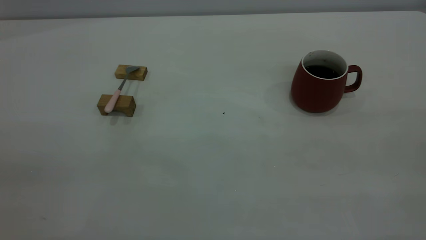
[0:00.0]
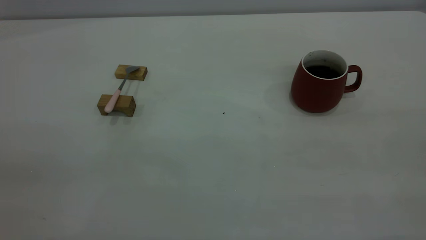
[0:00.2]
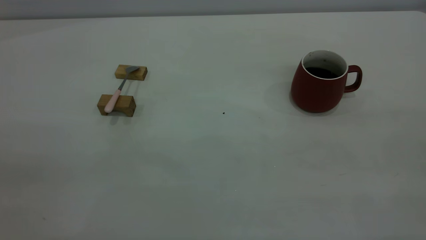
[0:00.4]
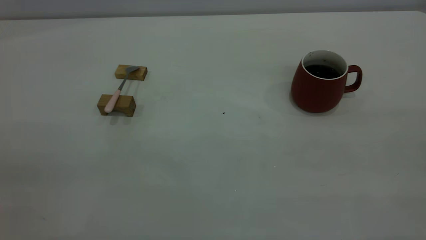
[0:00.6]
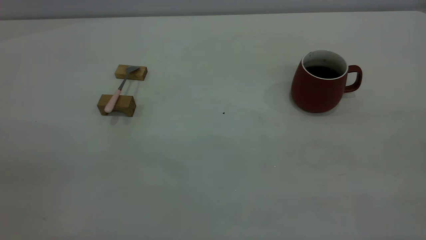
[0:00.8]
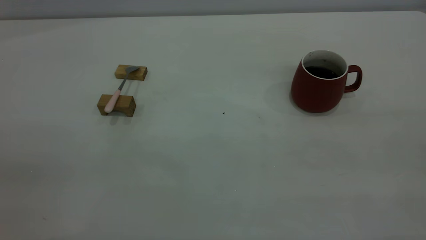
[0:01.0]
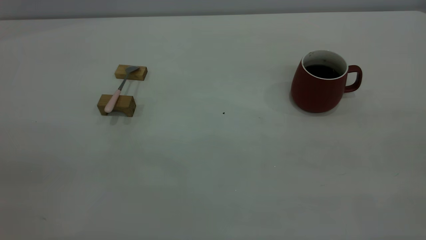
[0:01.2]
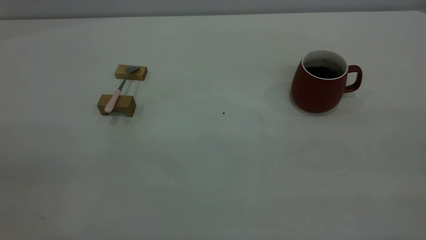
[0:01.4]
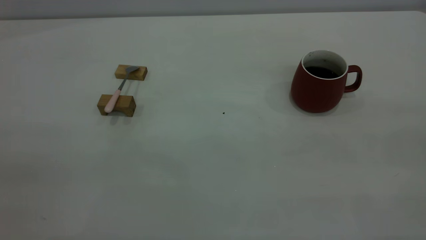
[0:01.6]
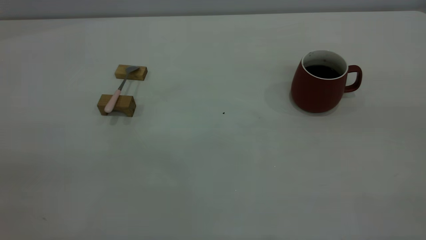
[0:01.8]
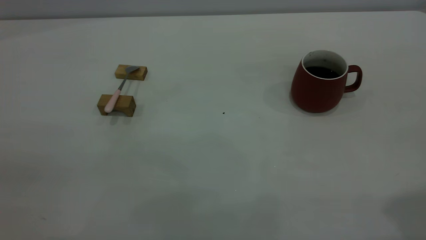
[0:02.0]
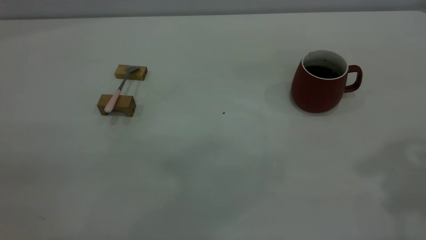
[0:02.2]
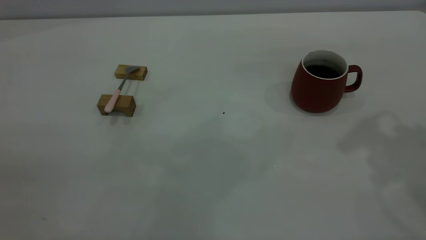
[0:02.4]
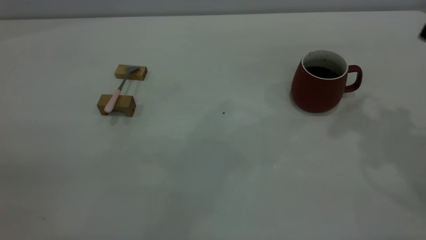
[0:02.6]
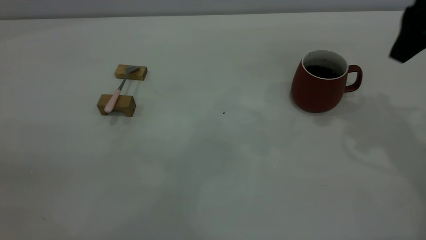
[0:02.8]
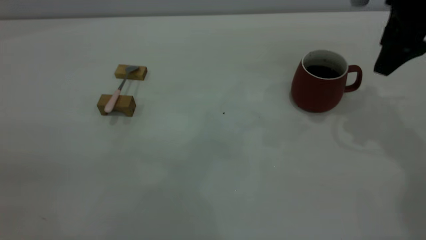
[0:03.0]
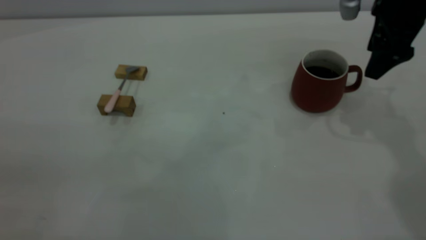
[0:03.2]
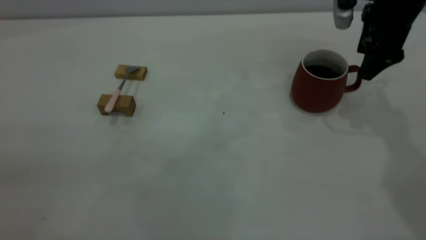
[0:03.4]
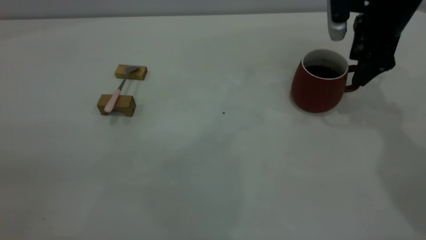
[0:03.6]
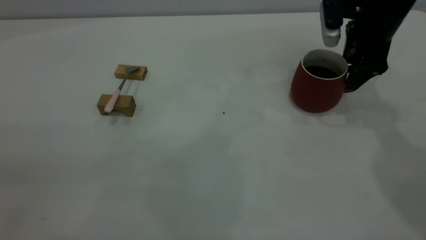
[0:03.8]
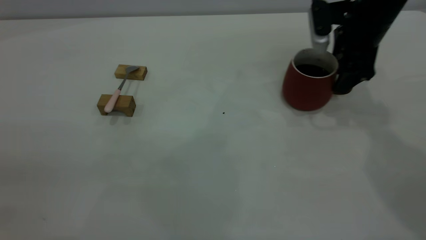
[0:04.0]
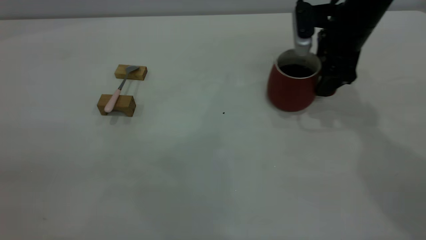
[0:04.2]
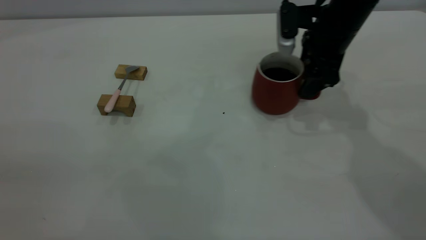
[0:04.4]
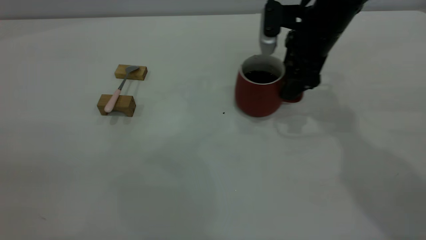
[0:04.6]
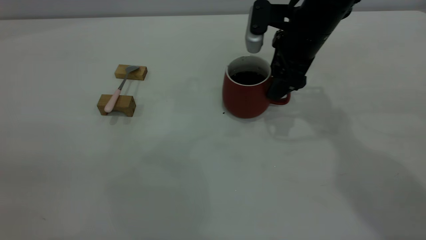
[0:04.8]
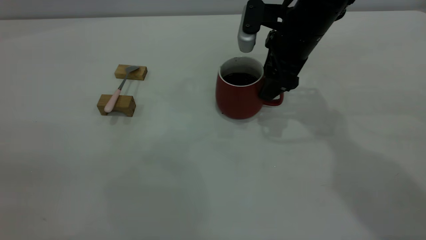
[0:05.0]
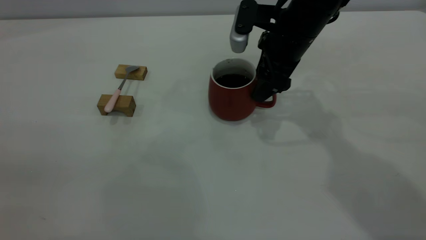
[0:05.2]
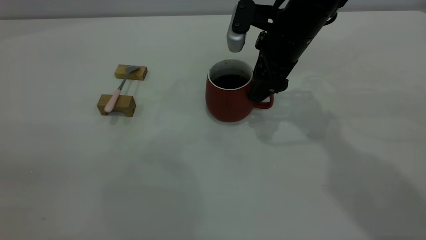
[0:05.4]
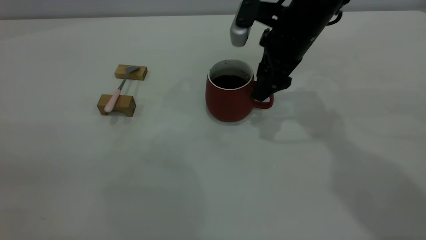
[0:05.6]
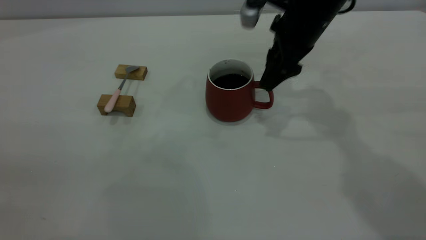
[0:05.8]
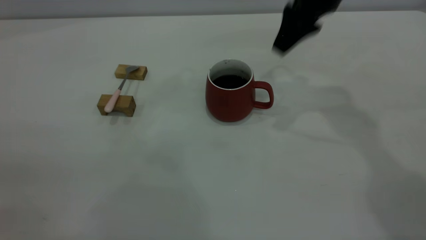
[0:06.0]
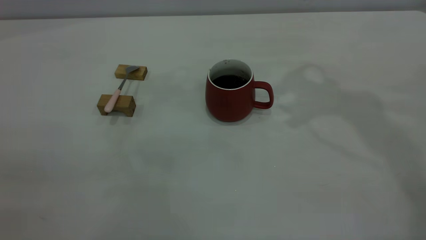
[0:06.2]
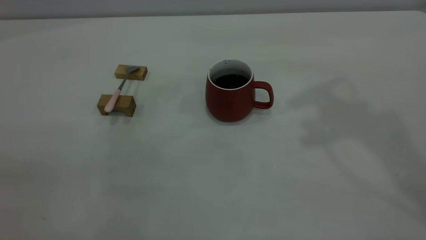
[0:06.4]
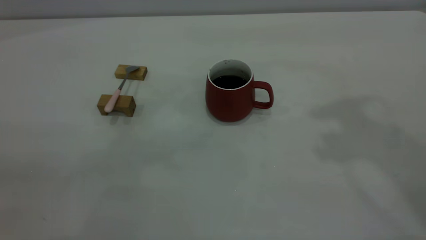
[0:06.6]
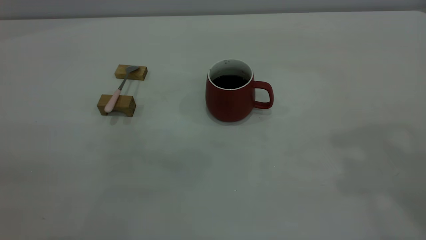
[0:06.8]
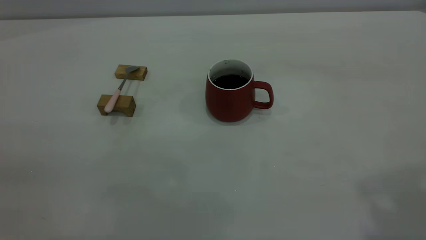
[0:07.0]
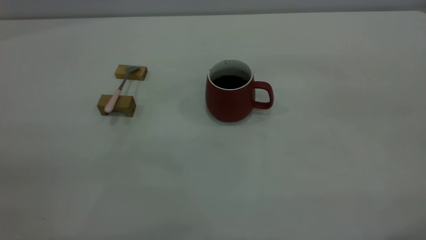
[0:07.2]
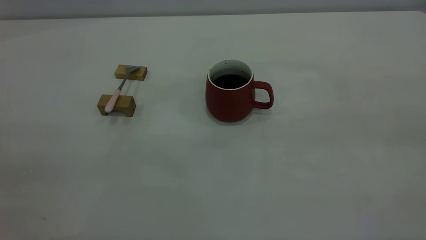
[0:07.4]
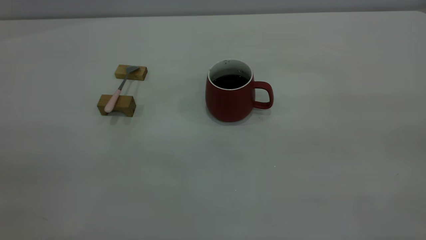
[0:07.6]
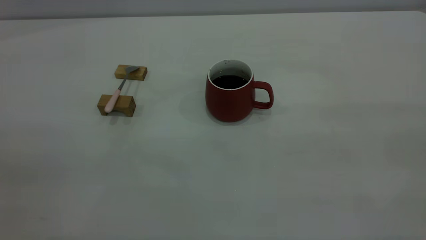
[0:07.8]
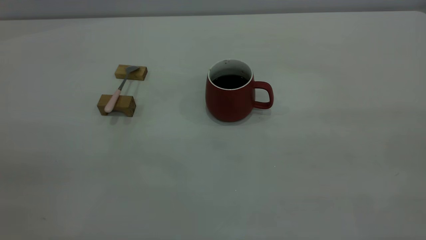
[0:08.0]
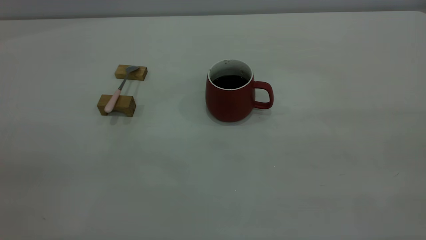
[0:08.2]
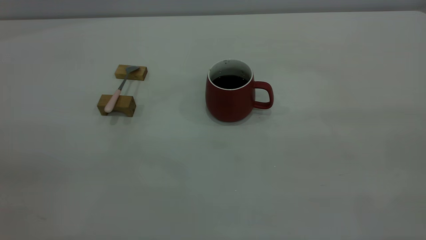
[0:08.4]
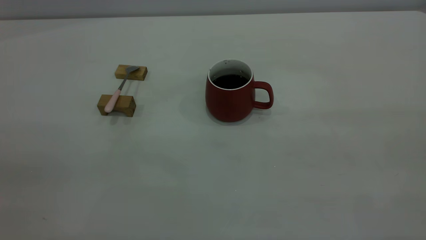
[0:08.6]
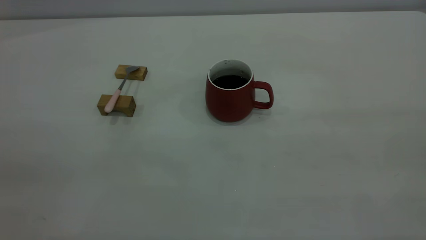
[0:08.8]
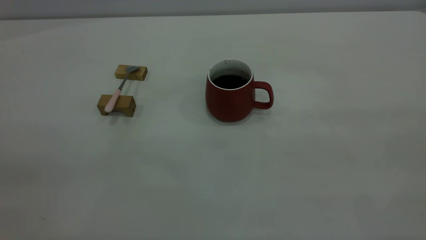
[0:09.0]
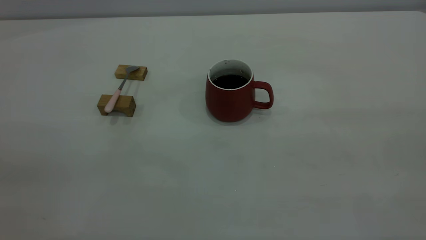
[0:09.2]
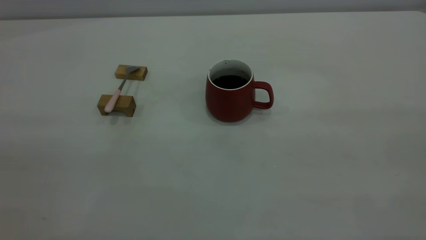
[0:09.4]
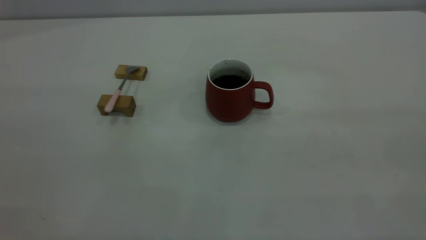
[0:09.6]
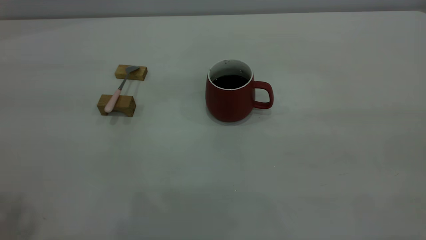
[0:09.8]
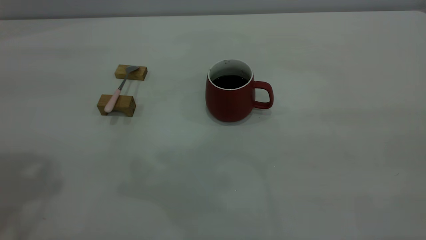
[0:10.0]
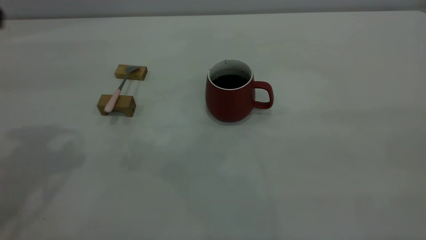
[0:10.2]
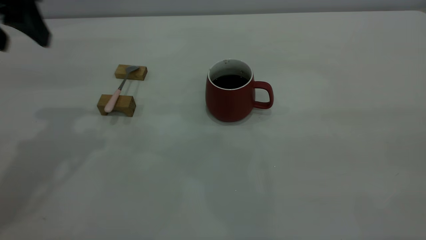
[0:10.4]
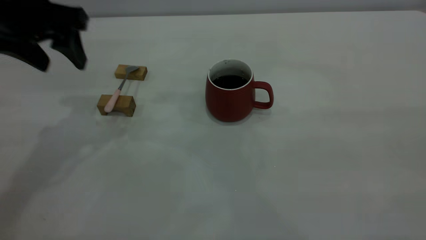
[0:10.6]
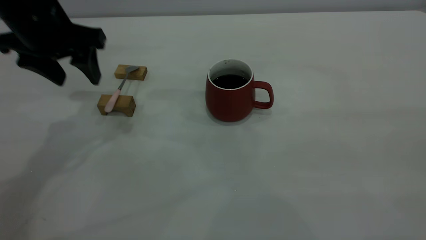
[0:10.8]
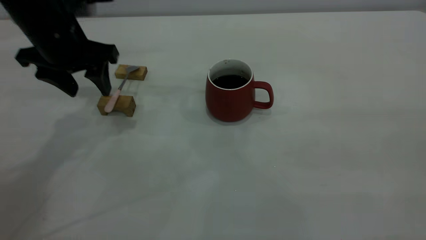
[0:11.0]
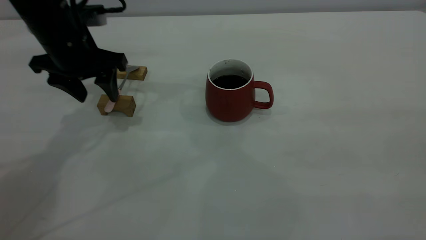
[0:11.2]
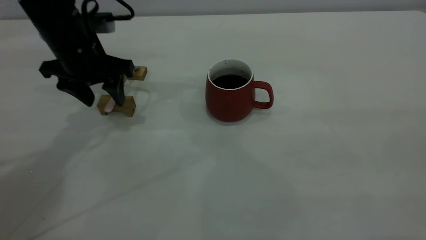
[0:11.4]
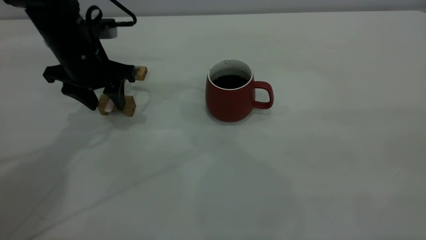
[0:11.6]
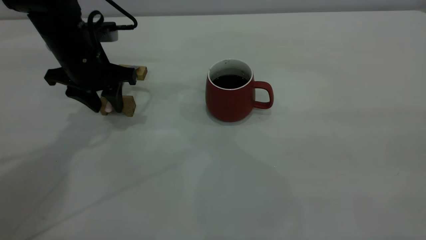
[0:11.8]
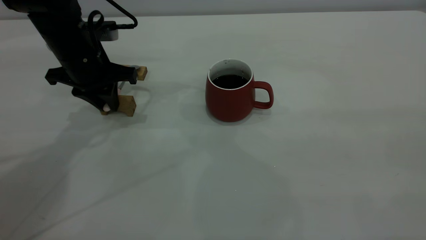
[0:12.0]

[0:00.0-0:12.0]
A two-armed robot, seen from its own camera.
Step, 0:00.0 to 0:05.8: Move the cup with coffee to the center of view.
0:01.6 to 0:03.0: The right gripper goes about 40 cm forward and downward, and opens up.
0:03.0 to 0:04.4: The right gripper travels to the left and downward by about 10 cm, and closes its fingers.
0:04.4 to 0:06.0: The right gripper goes approximately 10 cm upward, and closes.
0:06.0 to 0:07.6: The right gripper is displaced backward by roughly 40 cm.
0:09.0 to 0:10.4: The left gripper is displaced forward by roughly 30 cm, and opens up.
0:10.4 to 0:12.0: The left gripper travels downward and forward by some 15 cm, and closes up.

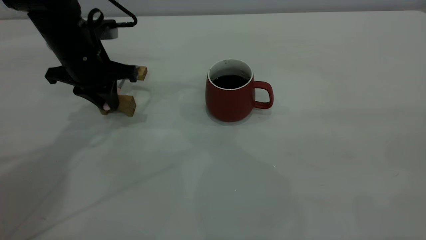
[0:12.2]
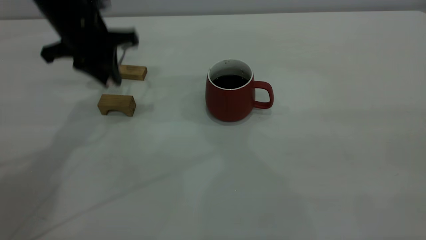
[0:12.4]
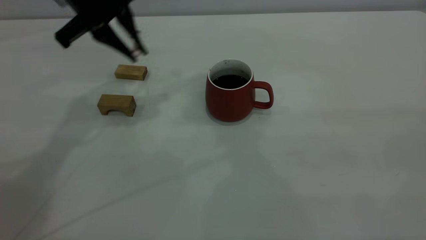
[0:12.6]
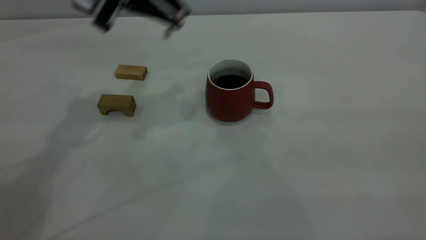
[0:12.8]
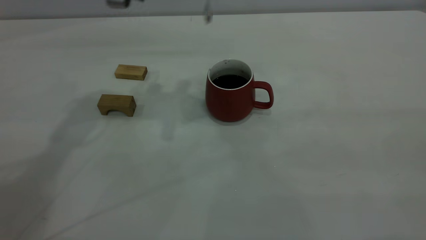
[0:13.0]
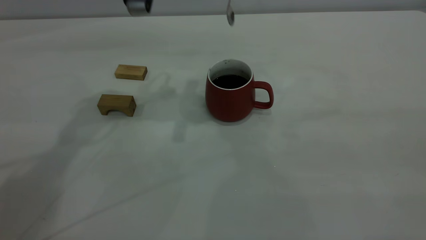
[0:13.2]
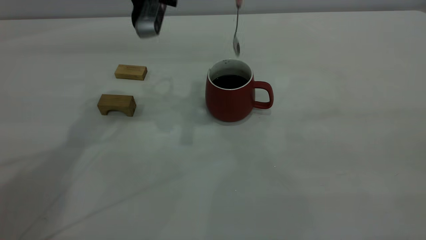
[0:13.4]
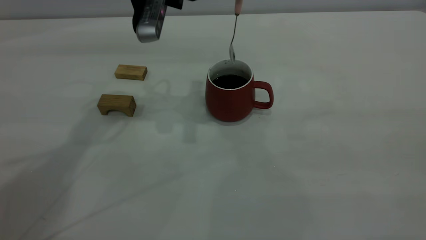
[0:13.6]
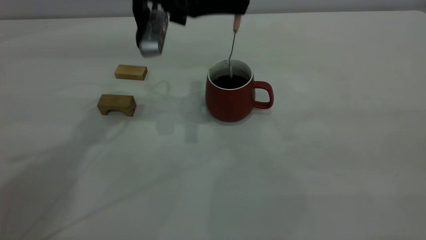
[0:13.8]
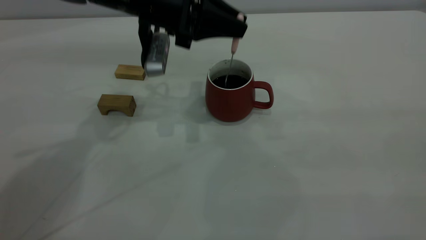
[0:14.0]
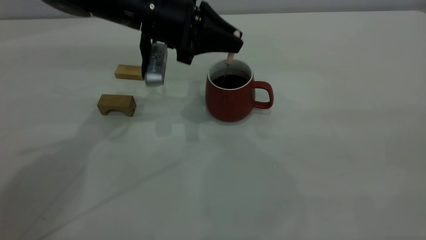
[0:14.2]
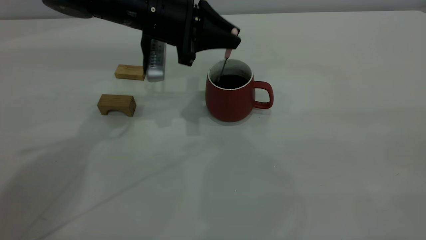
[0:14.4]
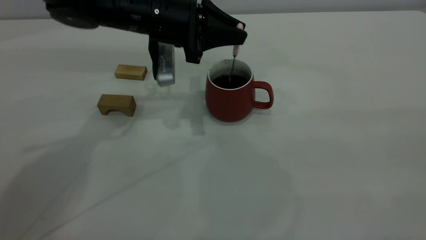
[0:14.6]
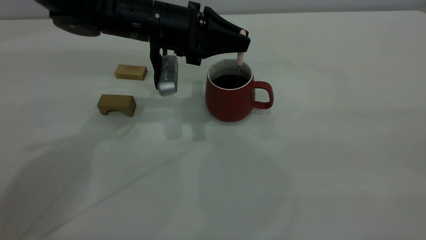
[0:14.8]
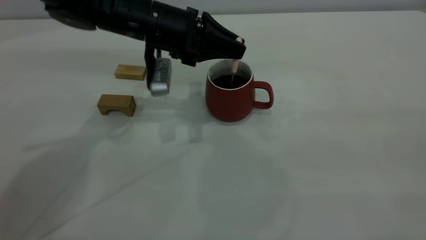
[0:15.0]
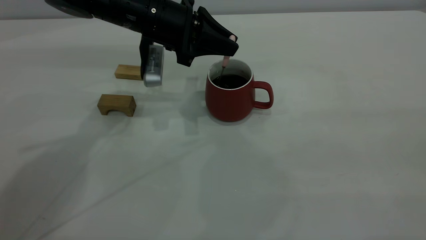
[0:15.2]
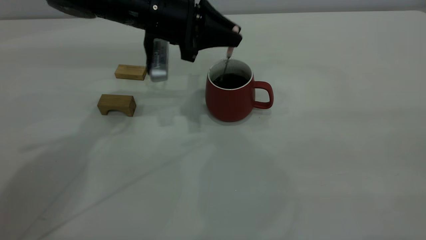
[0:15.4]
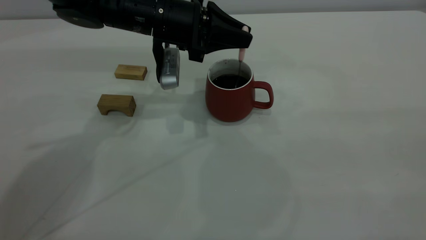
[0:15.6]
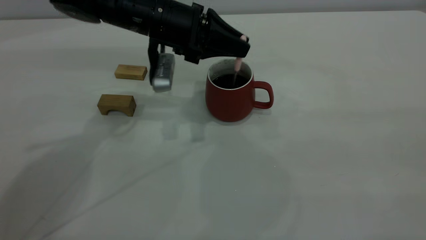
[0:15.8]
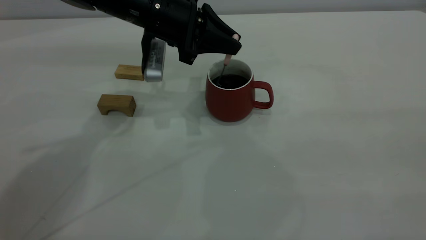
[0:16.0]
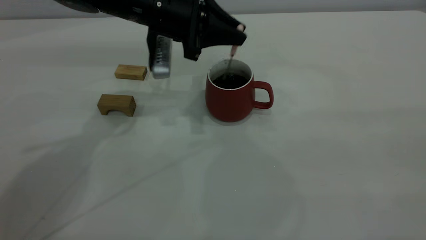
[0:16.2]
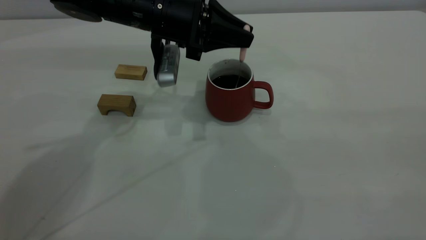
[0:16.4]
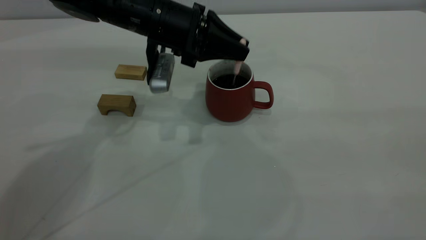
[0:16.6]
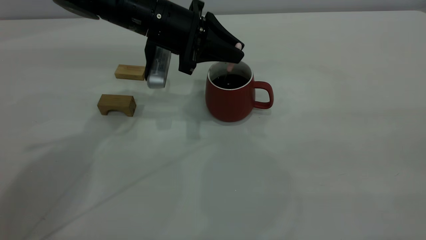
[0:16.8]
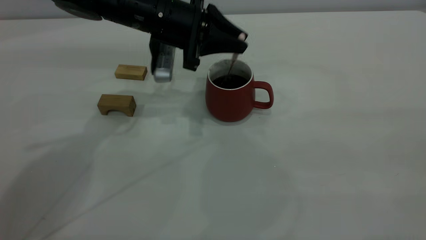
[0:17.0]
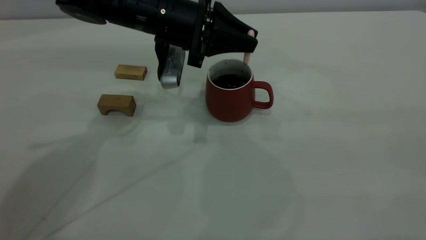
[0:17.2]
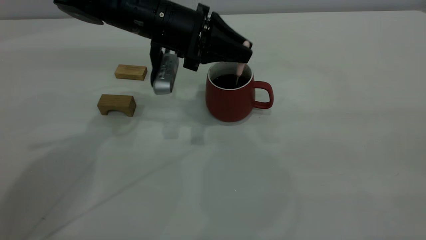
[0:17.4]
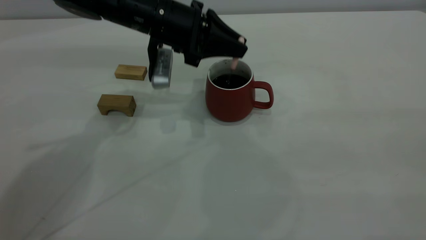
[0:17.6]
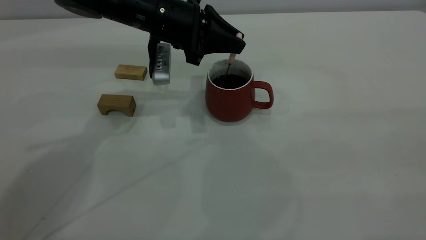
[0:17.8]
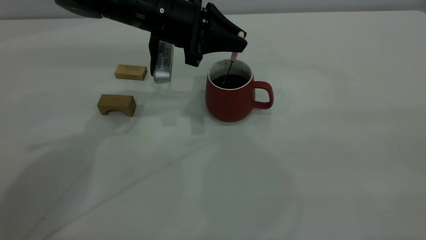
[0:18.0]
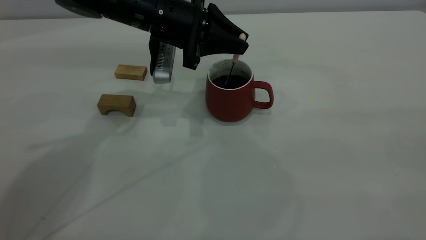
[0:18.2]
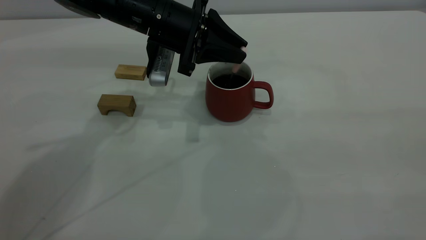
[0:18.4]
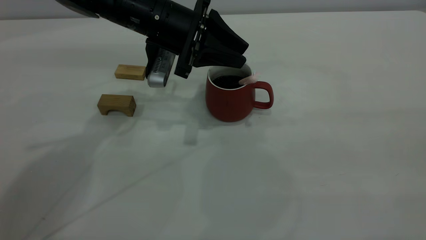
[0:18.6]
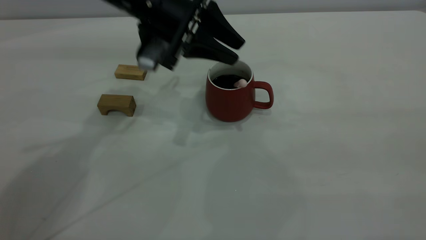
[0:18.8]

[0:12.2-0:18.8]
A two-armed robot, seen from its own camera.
0:12.2 to 0:13.8: The left gripper travels to the right and upward by approximately 15 cm.
0:13.8 to 0:15.4: The left gripper heads downward, covering some 5 cm.
0:15.4 to 0:17.2: The grippers stay close to where they were, moving slightly.
